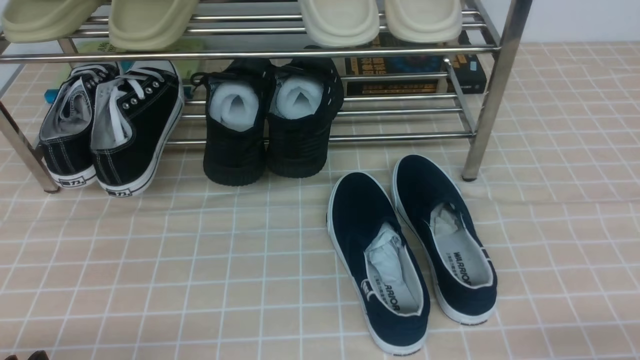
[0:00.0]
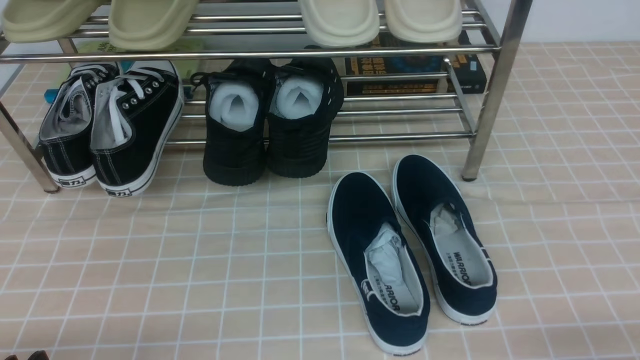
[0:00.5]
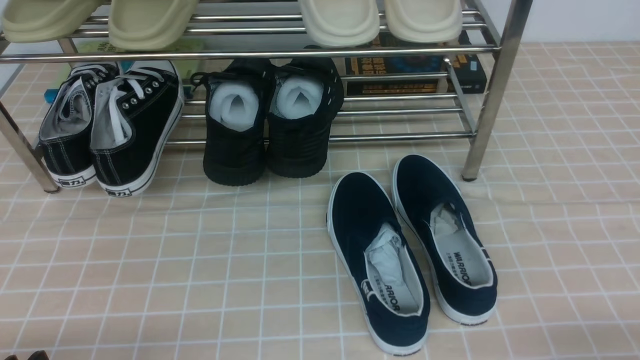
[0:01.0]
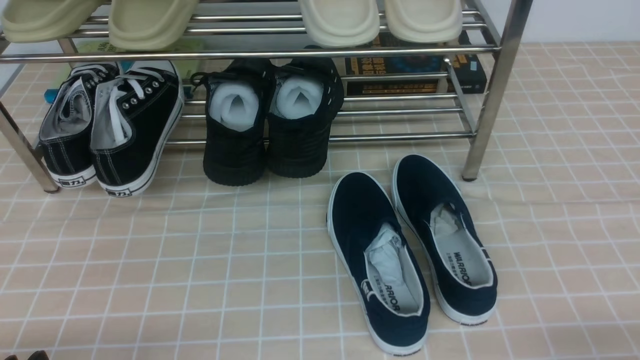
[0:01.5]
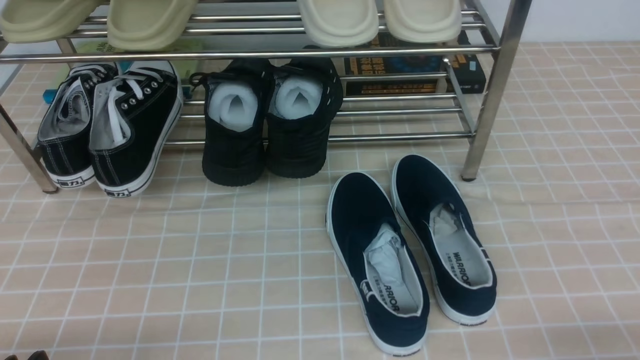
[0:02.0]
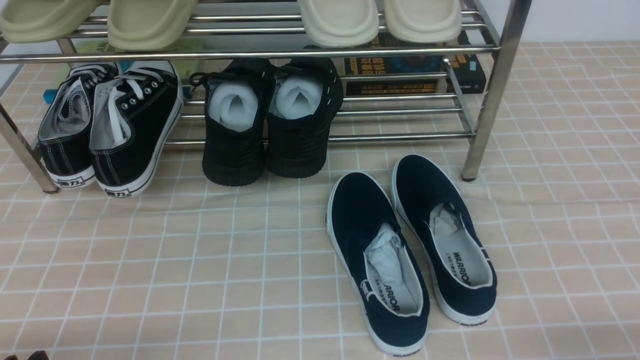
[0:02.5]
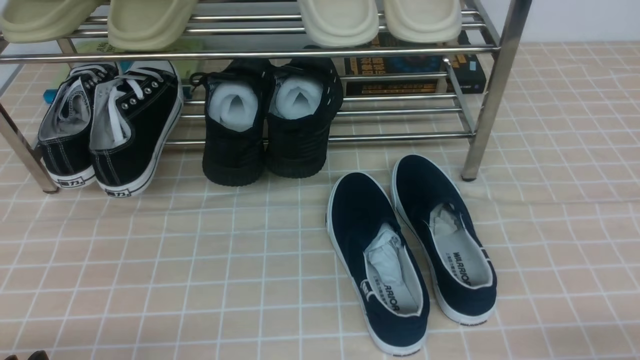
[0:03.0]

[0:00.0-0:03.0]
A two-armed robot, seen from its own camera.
0:00.0 to 0:03.0: The two grippers keep their place.
